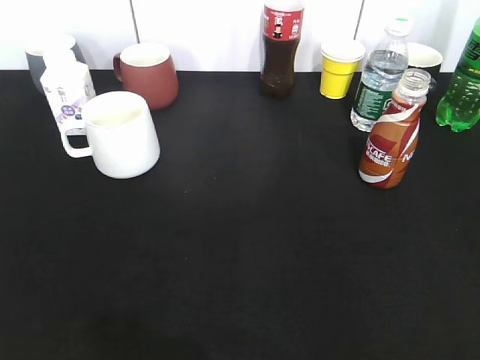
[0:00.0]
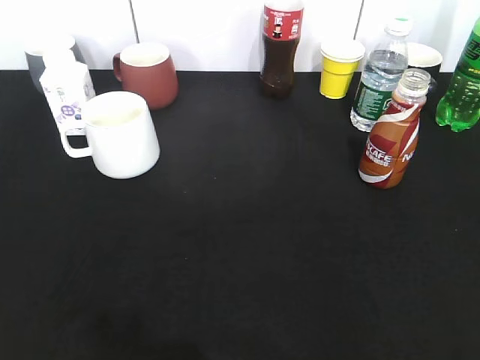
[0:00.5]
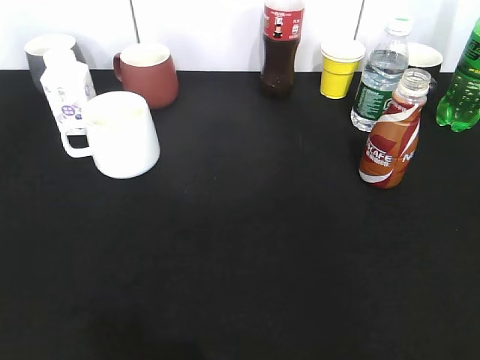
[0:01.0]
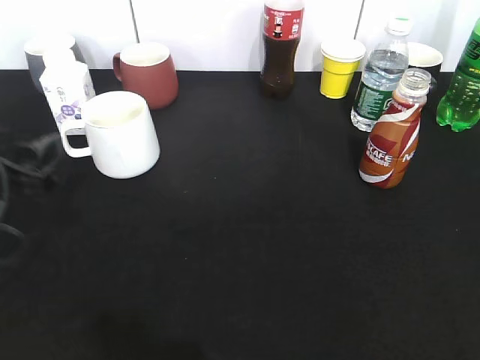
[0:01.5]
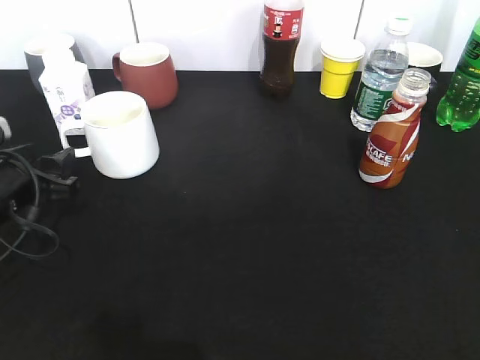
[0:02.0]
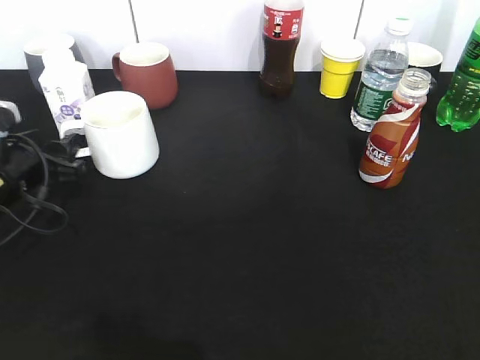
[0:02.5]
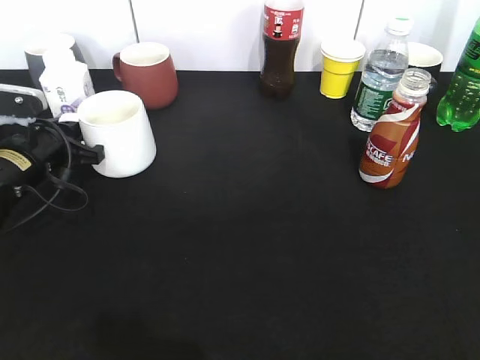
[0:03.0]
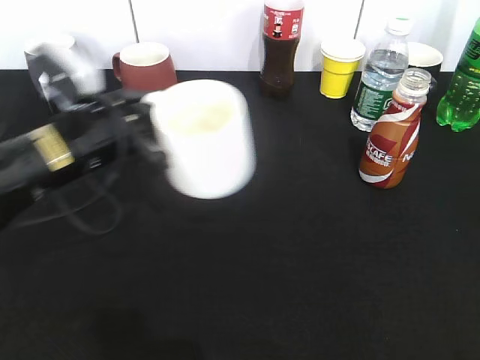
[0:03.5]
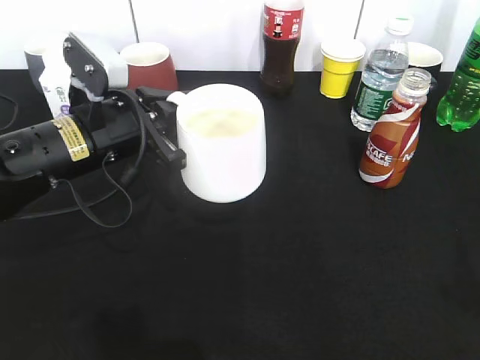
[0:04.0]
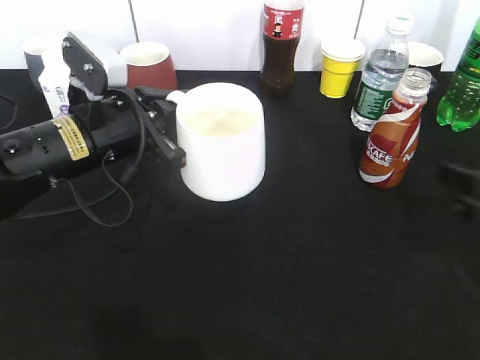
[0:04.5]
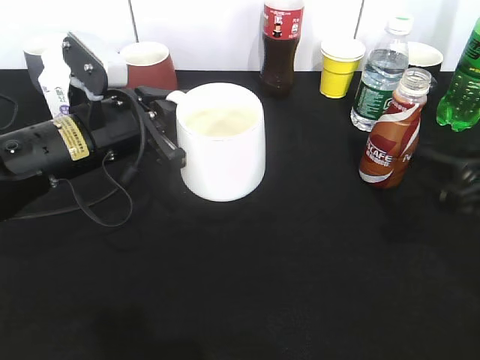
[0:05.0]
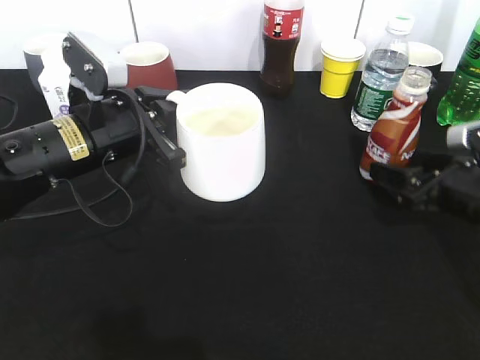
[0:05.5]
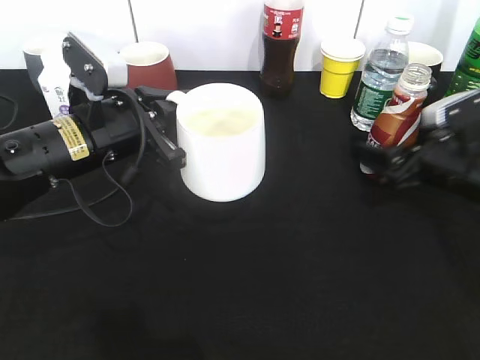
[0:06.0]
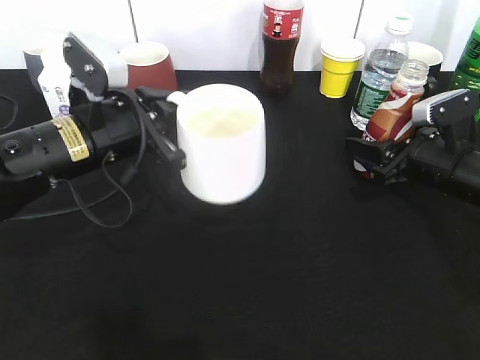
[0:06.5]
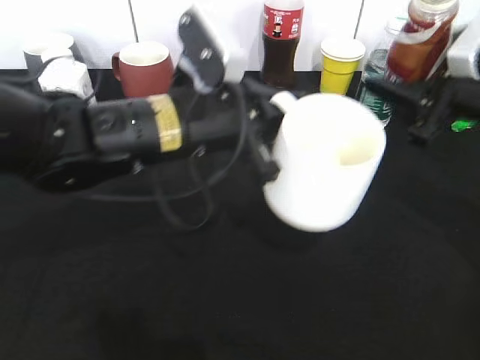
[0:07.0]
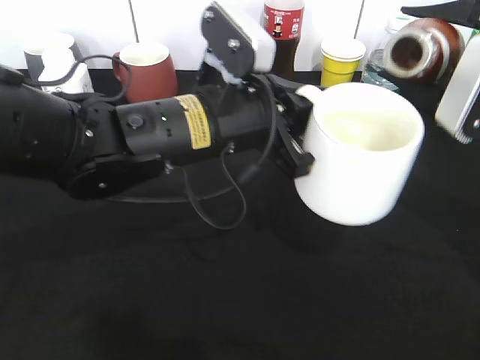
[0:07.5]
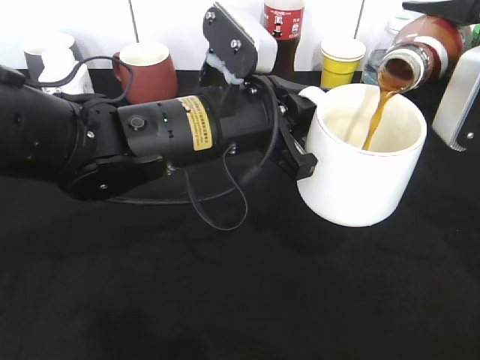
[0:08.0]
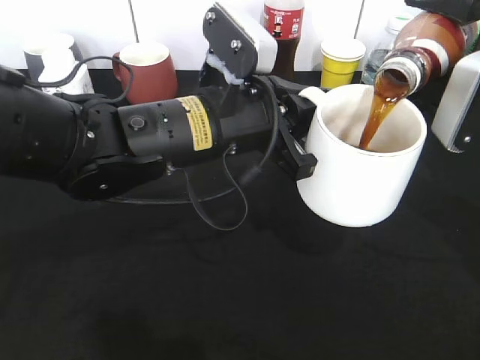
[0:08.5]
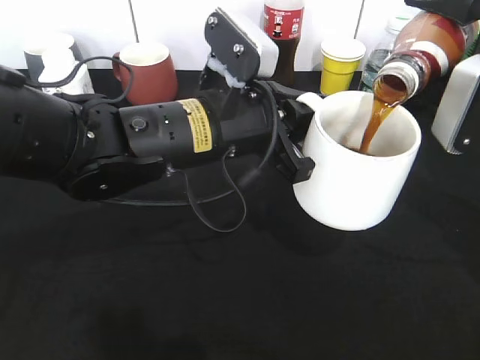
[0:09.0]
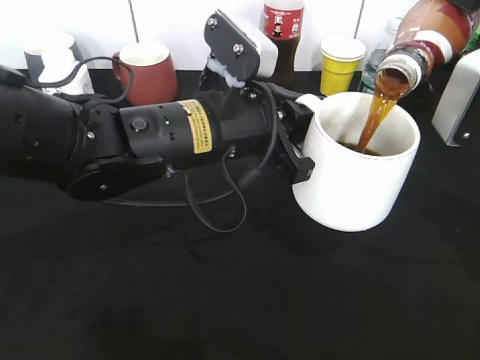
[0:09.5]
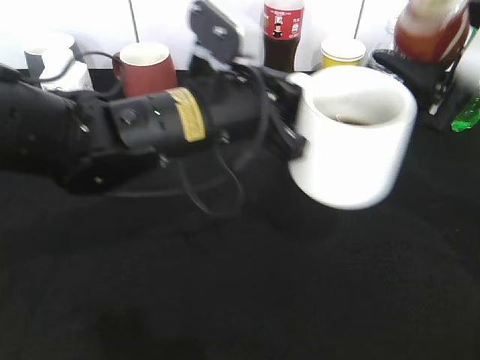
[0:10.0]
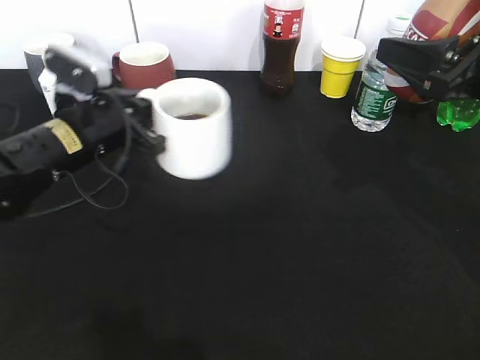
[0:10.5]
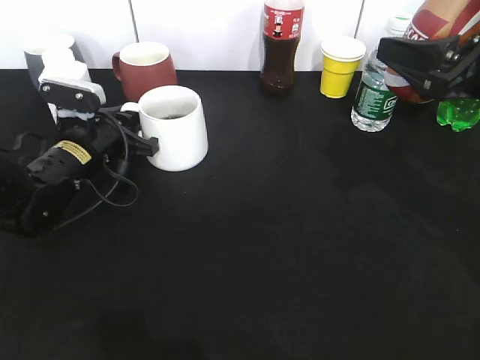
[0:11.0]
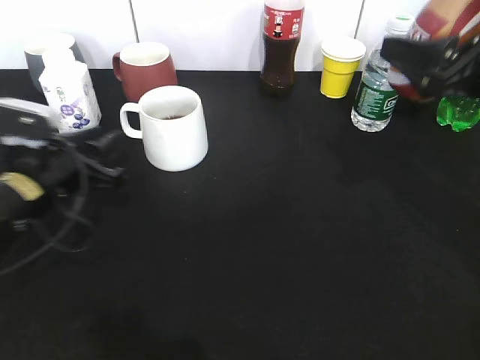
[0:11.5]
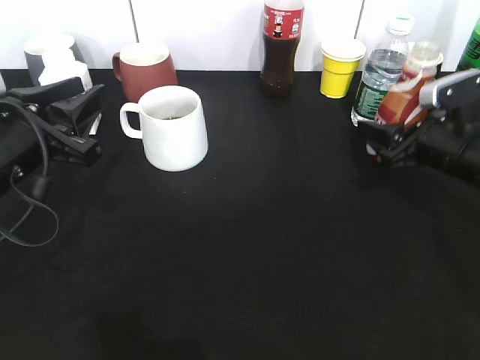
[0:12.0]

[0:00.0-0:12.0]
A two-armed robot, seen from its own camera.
Step, 0:00.5 to 0:02.5: Grasp the white cup with left gripper.
Step, 0:04.0 to 0:06.0: Grasp the bottle with coffee with right gripper.
Step, 0:06.5 to 0:09.5: Pour the coffee from bottle to cup with right gripper.
Step, 0:10.5 to 0:11.0: Place the white cup on the table with left gripper.
0:00.0 to 0:02.0: The left gripper moves forward and downward, about 30 cm, and opens.
0:02.0 to 0:04.0: The left gripper moves to the right and upward, about 15 cm, and closes, while the right gripper is displaced upward by some 5 cm.
0:04.0 to 0:06.0: The right gripper is displaced forward and downward by roughly 35 cm.
0:06.0 to 0:08.0: The right gripper moves upward, approximately 15 cm, and closes its fingers; the left gripper shifts some 10 cm to the right.
0:10.0 to 0:12.0: The right gripper heads downward, covering some 15 cm. The left gripper heads to the left, covering roughly 20 cm, and opens.

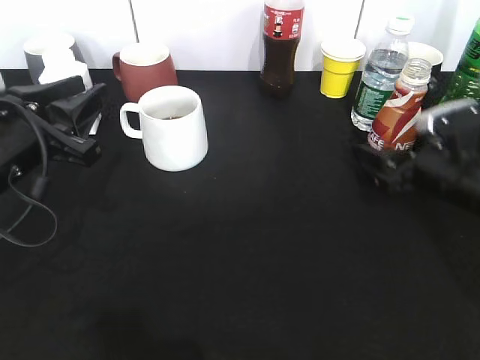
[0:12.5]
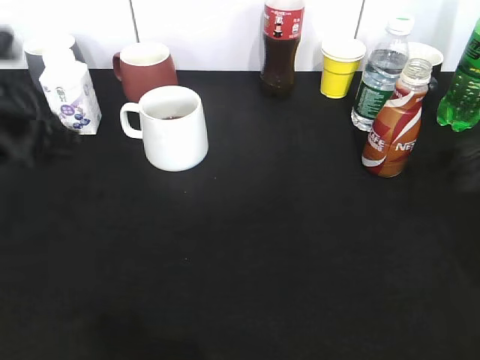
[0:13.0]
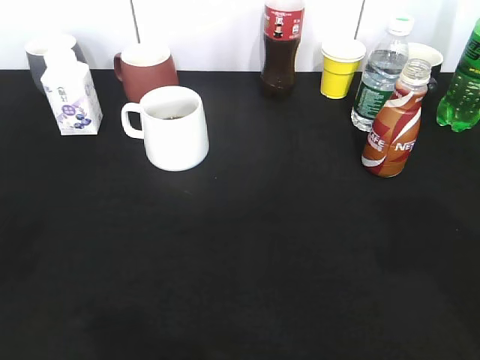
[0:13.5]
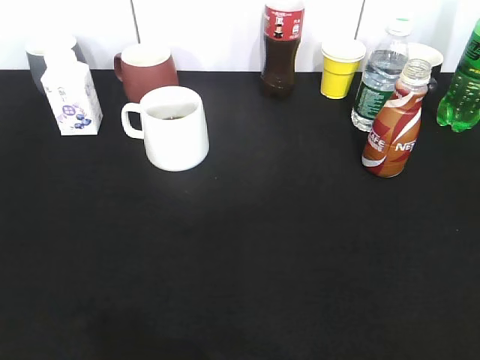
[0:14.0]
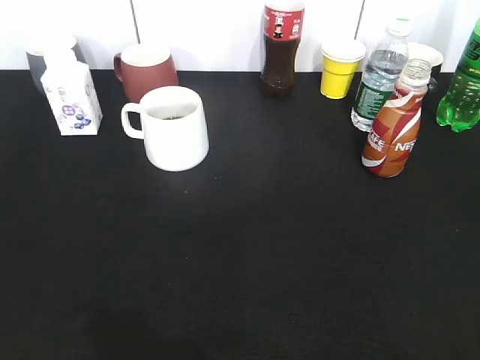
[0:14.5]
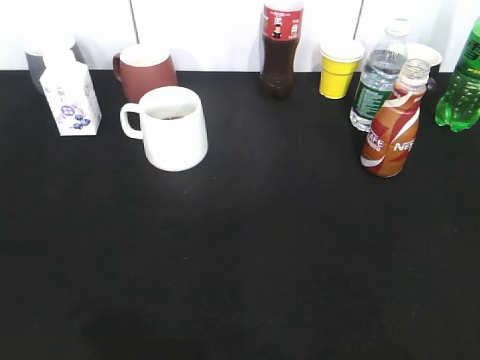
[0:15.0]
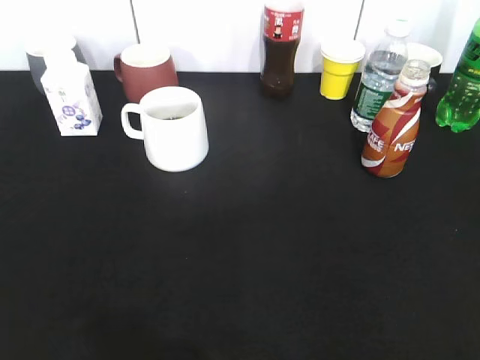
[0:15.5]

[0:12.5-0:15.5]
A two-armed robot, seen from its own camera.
0:12.5 to 0:14.0: The left gripper is displaced backward, upward and to the left by approximately 25 cm, while the right gripper travels backward and upward by about 35 cm, and closes its fingers.

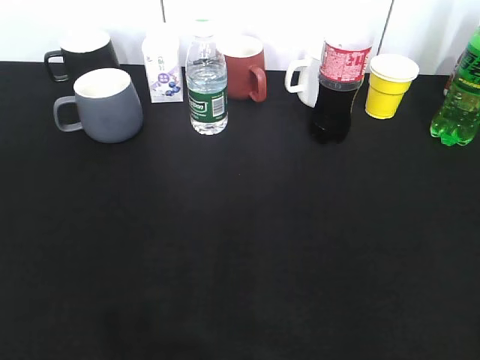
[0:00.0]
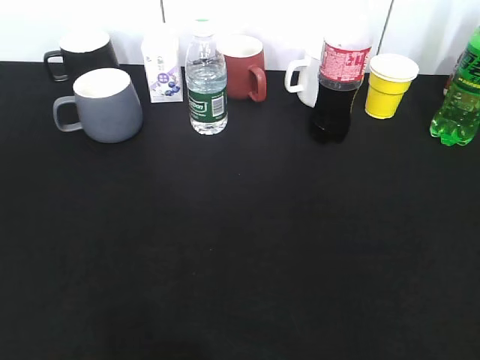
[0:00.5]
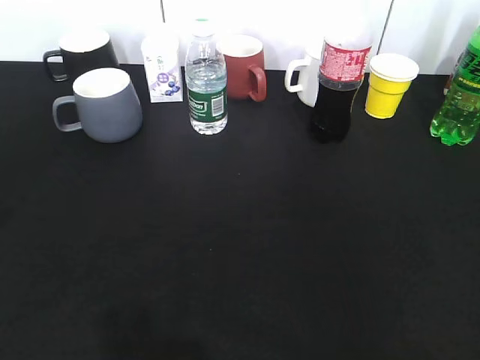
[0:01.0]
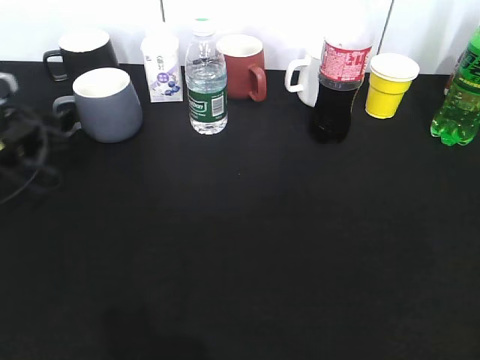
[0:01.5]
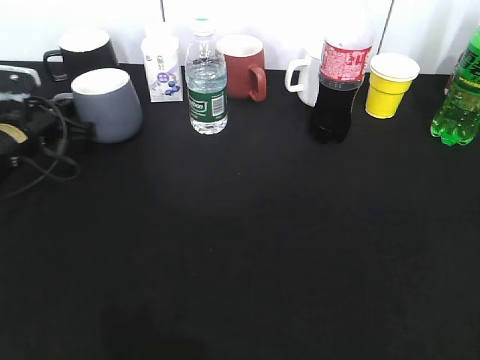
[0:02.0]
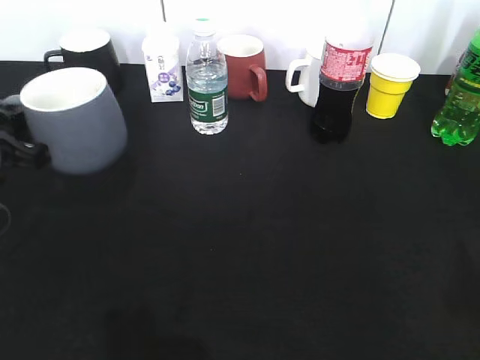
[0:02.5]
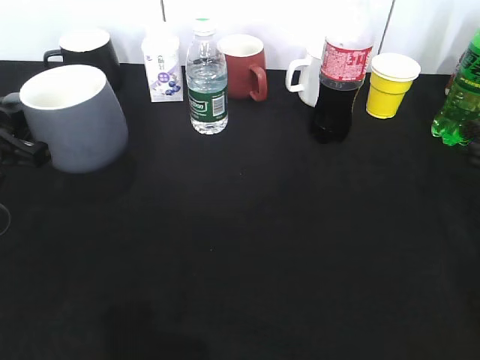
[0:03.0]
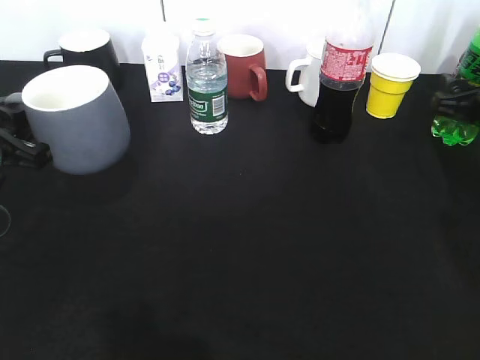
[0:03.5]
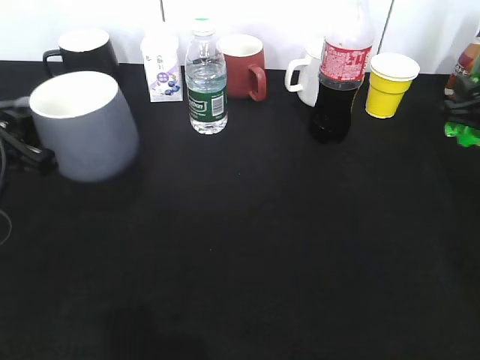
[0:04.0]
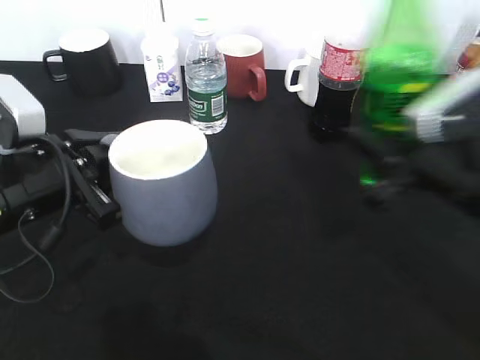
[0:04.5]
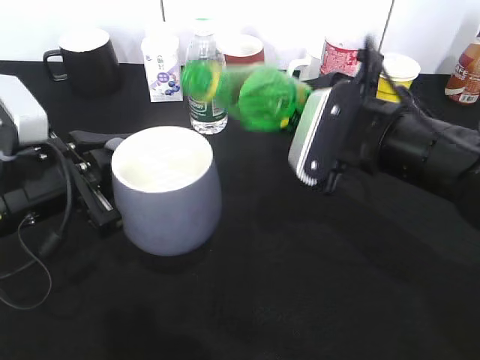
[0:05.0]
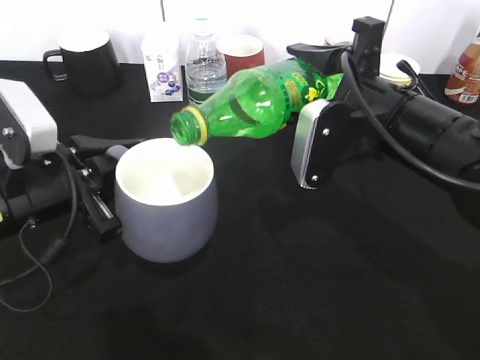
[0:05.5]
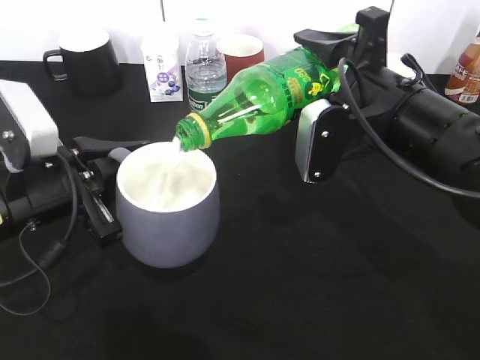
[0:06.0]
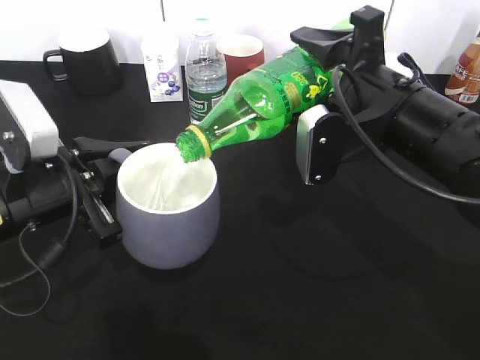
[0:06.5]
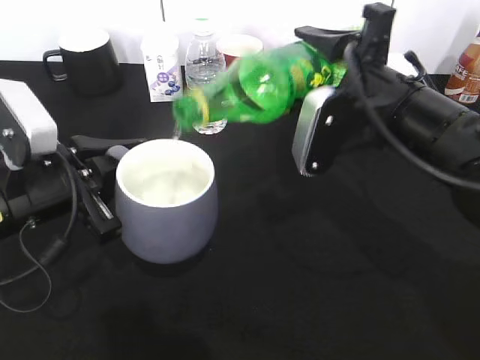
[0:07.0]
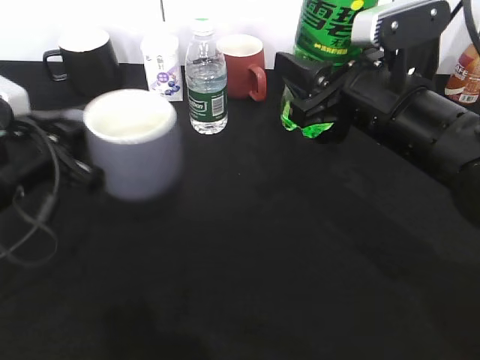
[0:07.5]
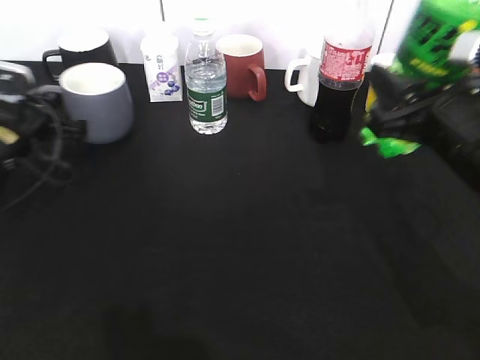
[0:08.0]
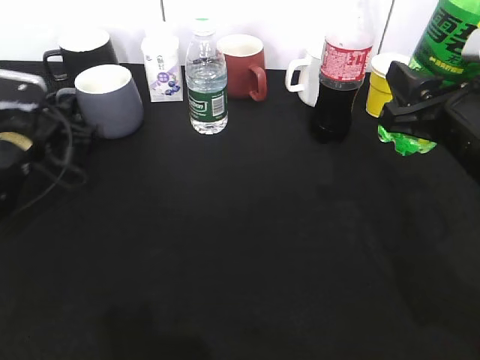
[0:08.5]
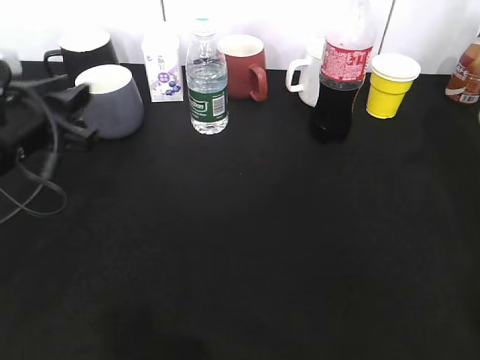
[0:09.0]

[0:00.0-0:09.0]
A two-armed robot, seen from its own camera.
Step, 0:02.0 to 0:02.5: Lift the grey cup with left gripper.
Step, 0:03.0 to 0:03.5: Grasp the bottle with sprite with right gripper.
Step, 0:04.0 to 0:07.0: Pour the sprite from bottle to cup with right gripper.
0:00.0 to 0:02.0: The left gripper shifts about 40 cm forward and downward, and closes.
0:02.0 to 0:04.5: The left gripper is displaced backward, to the right and upward by some 20 cm; the right gripper is displaced forward and to the left by about 25 cm, and closes.
0:04.5 to 0:07.0: The right gripper heads to the left and forward, covering some 5 cm.
0:07.0 to 0:09.0: The right gripper is displaced to the right by some 20 cm; the left gripper travels forward and back again, about 15 cm each way, and opens up.

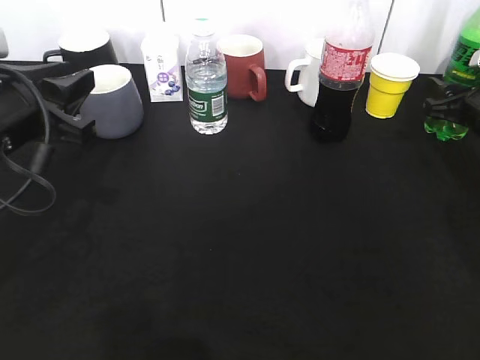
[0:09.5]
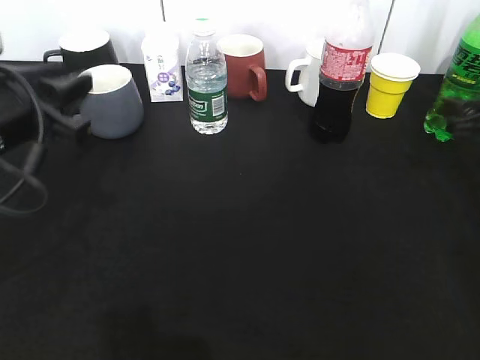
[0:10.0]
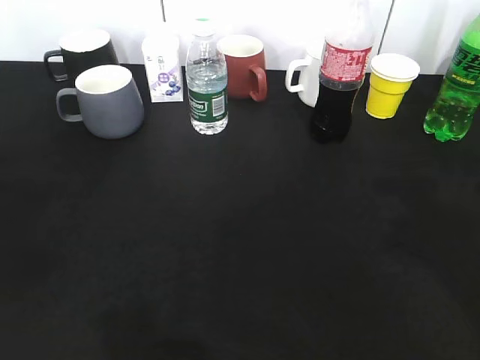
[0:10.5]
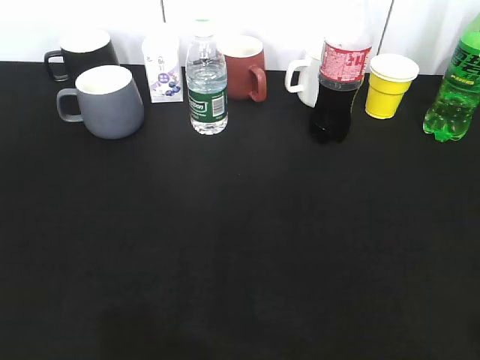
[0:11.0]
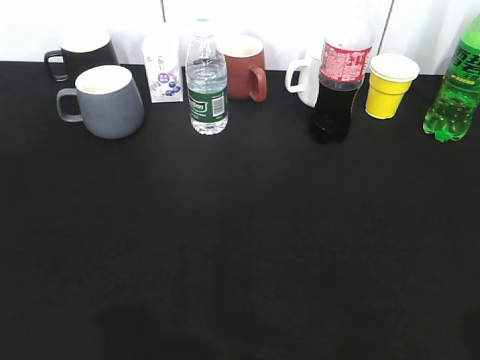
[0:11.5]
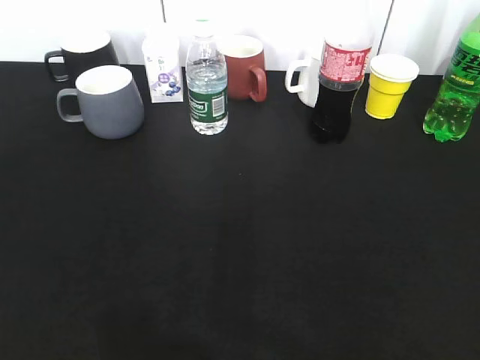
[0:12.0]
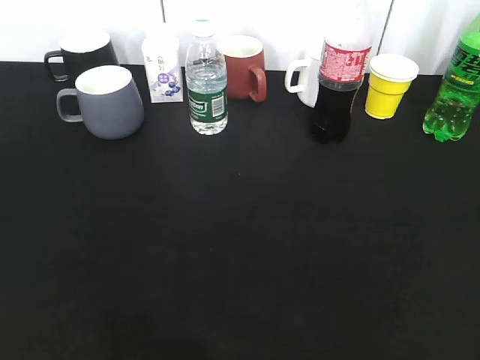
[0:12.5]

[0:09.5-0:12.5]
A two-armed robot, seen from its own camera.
0:09.5 to 0:11.0: The left gripper heads backward and to the left, covering some 25 cm, and opens its fingers. Meanwhile the right gripper is displaced backward and upward by some 40 cm.
